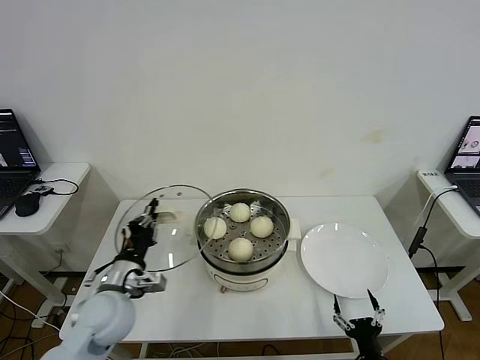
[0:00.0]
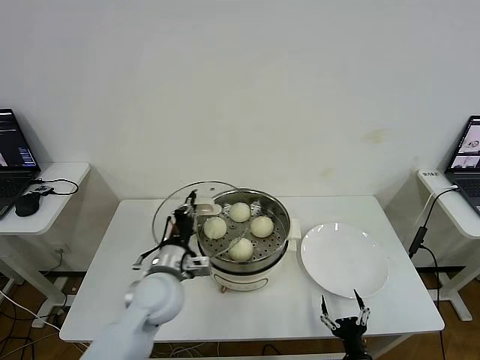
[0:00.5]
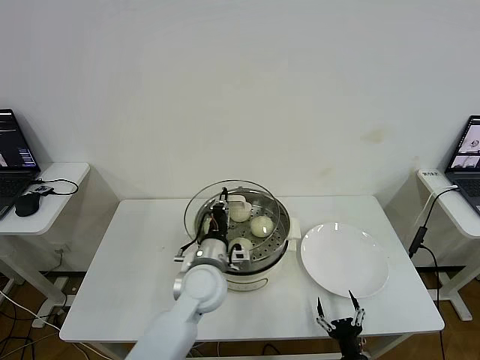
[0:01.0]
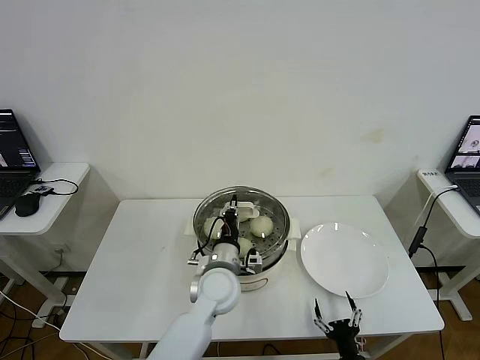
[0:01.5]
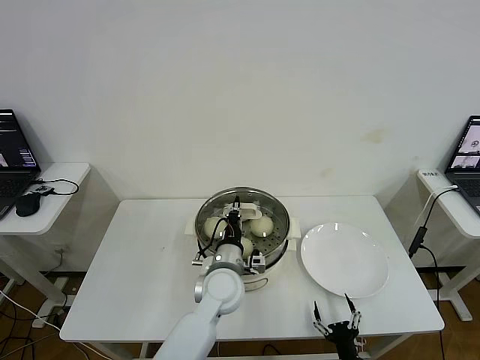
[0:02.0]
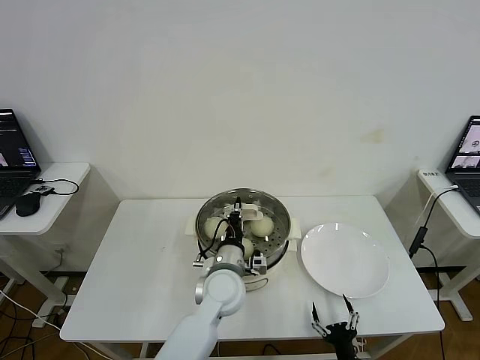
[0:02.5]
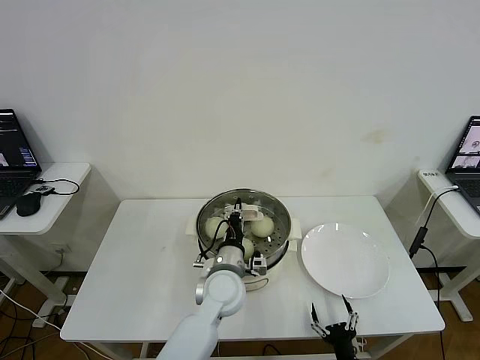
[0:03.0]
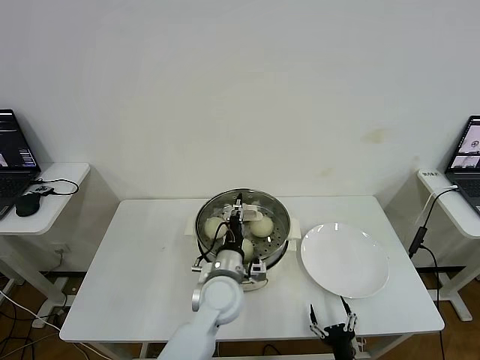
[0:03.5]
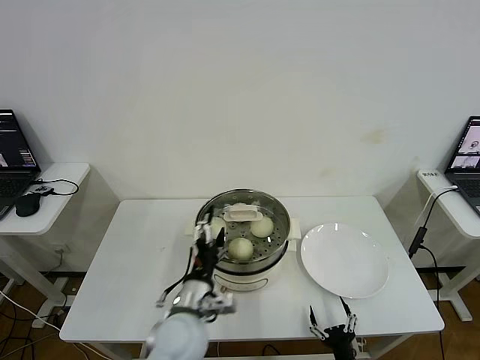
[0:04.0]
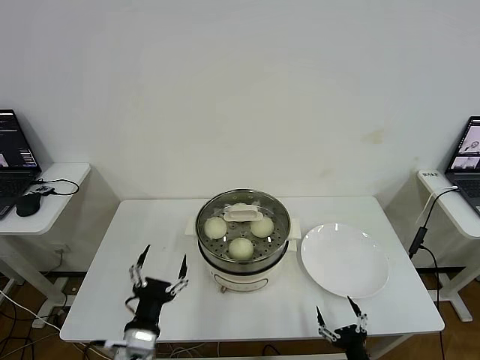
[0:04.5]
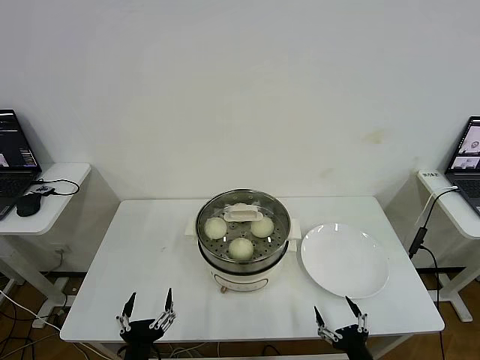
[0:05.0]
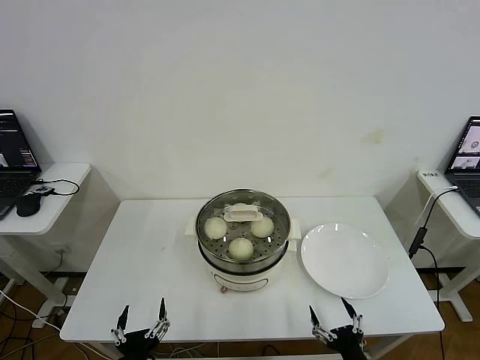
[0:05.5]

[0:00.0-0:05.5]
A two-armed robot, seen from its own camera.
Step, 0:00.0 to 0:03.0: Place the pot lid on the steamer with left gripper.
0:00.0 to 0:02.0: The right gripper moves roughly 5 cm. The left gripper shifts roughly 20 cm to the right.
0:02.0 to 0:03.5: The left gripper opens its fingers.
0:03.5 to 0:05.5: The left gripper goes approximately 30 cm backward and to the left, and opens. Meanwhile the right gripper is displaced upward by approximately 10 cm.

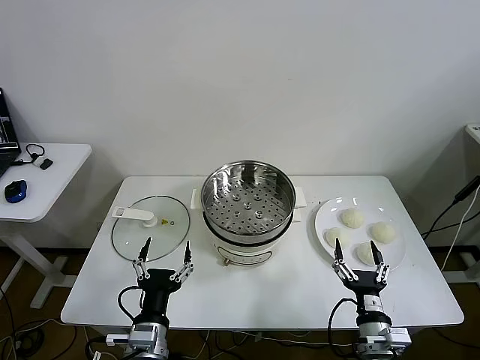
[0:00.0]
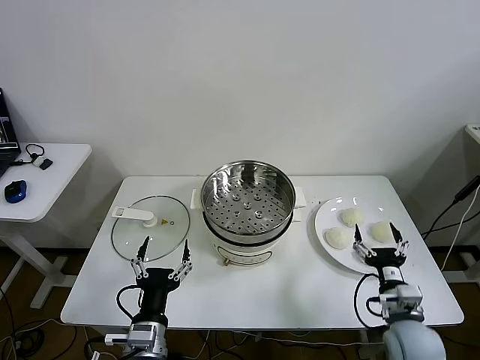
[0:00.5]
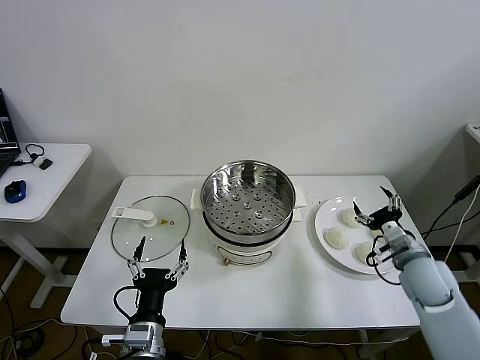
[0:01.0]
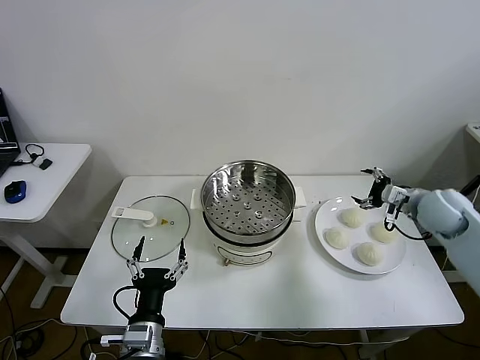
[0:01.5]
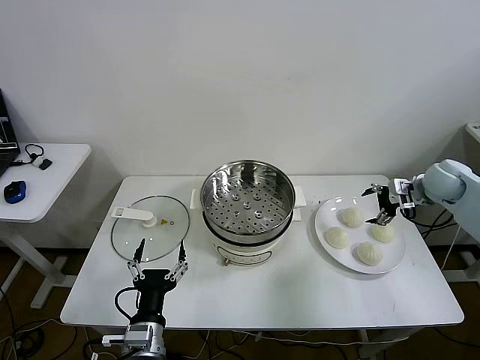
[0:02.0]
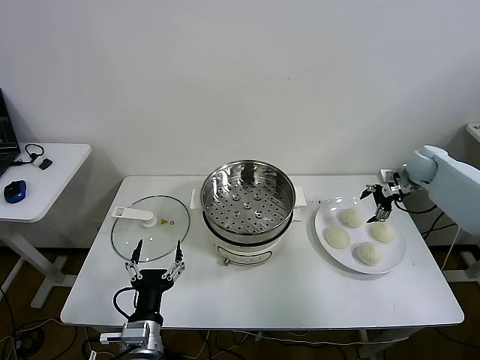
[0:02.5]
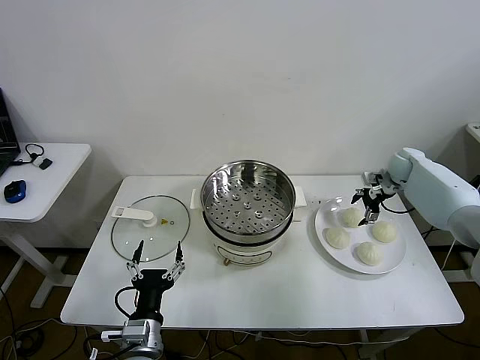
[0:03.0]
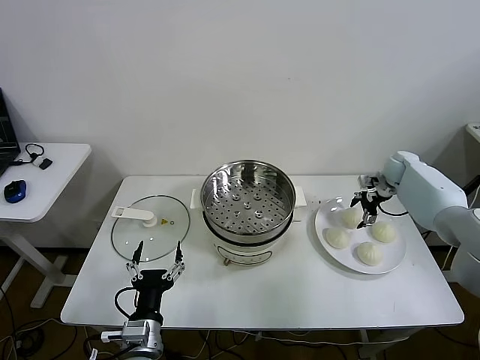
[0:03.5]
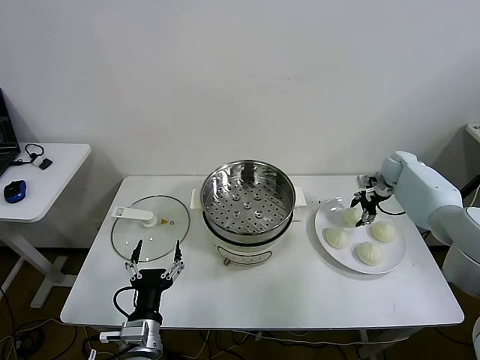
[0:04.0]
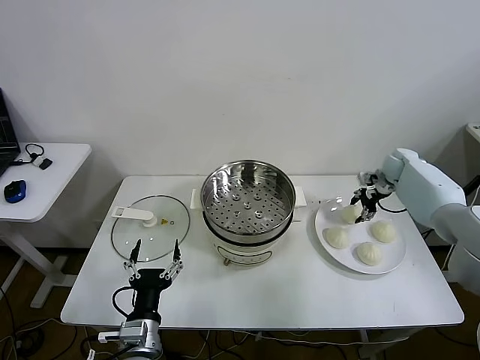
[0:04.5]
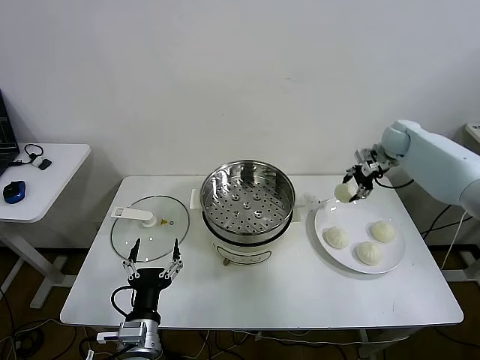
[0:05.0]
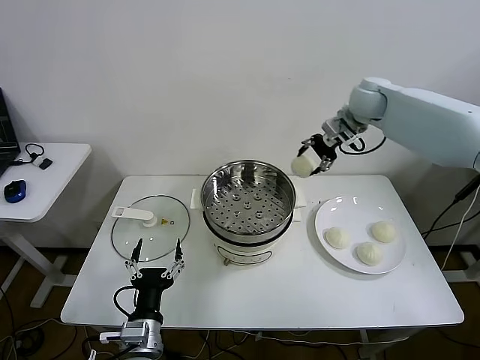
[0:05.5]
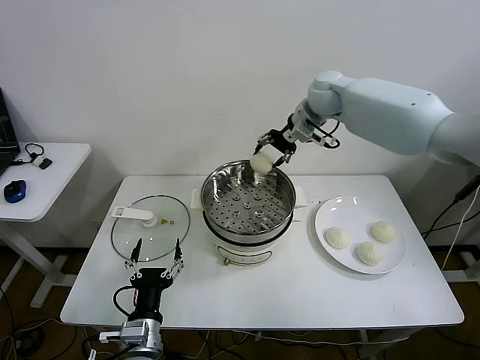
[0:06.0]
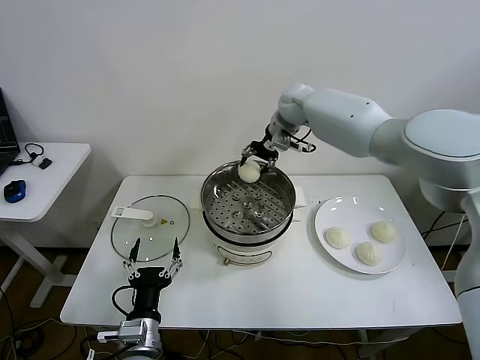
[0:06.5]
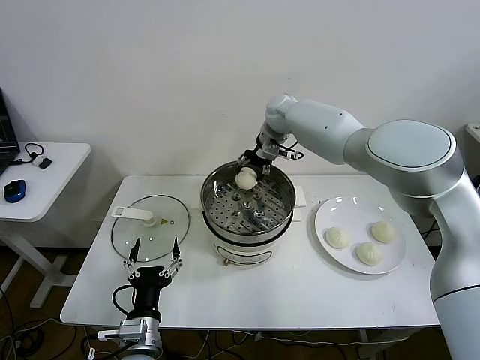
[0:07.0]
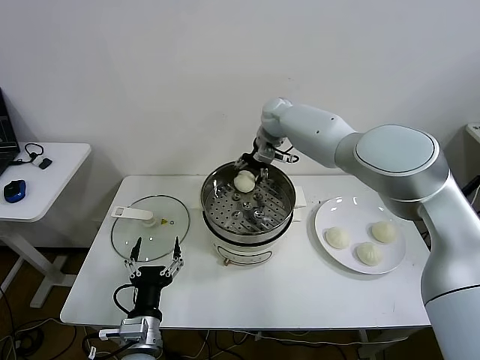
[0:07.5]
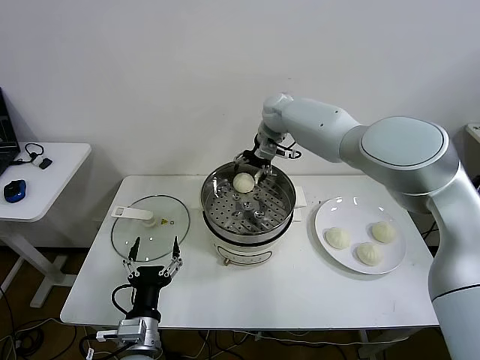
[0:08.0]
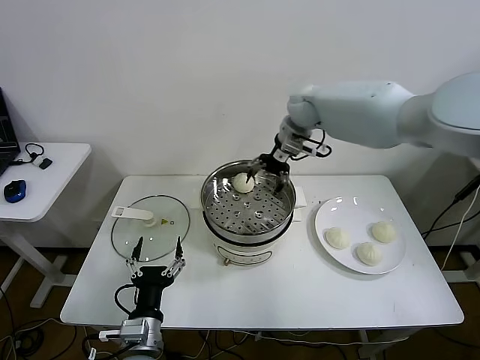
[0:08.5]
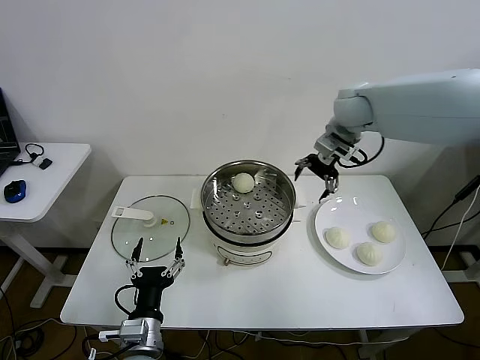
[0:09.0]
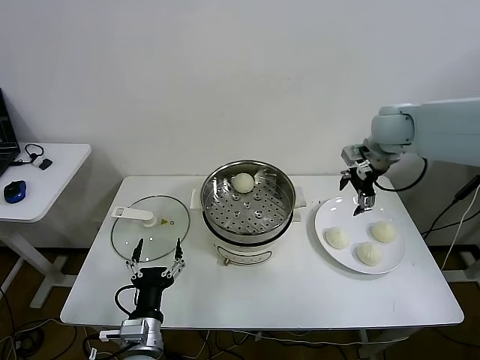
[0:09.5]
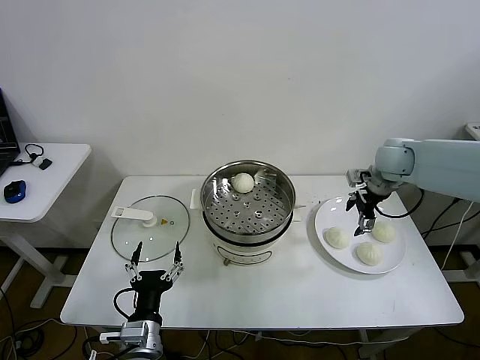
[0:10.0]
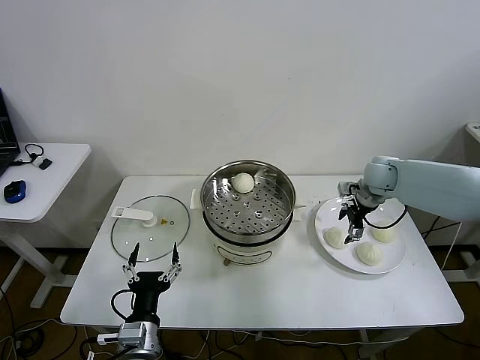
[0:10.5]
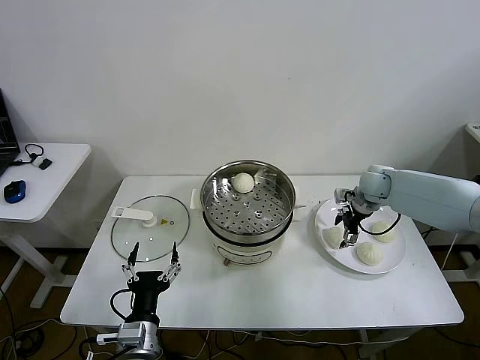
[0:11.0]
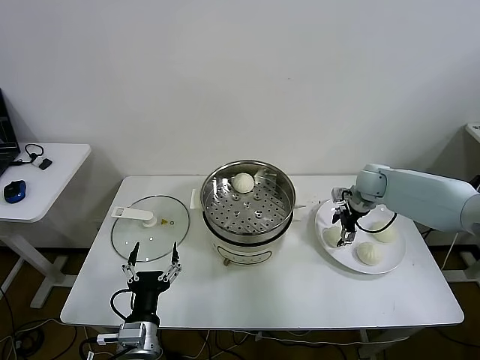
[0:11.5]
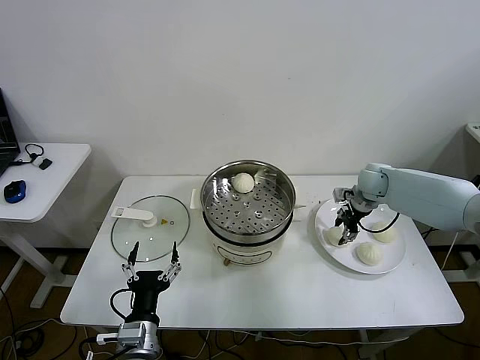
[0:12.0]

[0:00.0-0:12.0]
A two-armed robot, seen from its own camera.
Step, 0:00.0 to 0:04.0: Grasp the baozi in the plate with right gripper.
Step, 0:04.5 to 0:08.0: Place the baozi on the steamer with right gripper.
Step, 0:08.5 to 0:12.0: Grasp the baozi in the plate with right gripper.
0:02.0 to 0:04.0: The right gripper is displaced forward and downward by some 15 cm.
0:04.0 to 0:06.0: The right gripper goes about 35 cm to the left and upward.
0:06.0 to 0:08.0: The right gripper travels to the left and downward by about 10 cm, and opens up.
0:08.0 to 0:10.0: The right gripper travels to the right and backward by approximately 30 cm.
0:10.0 to 0:12.0: The right gripper is displaced downward by roughly 10 cm, and closes its fingers.

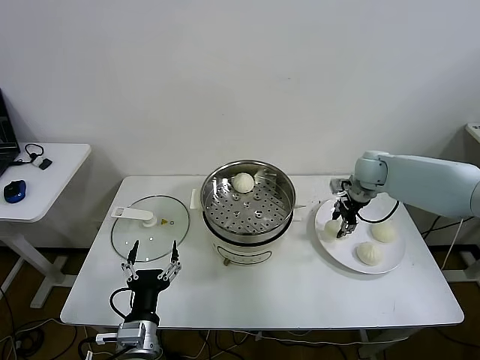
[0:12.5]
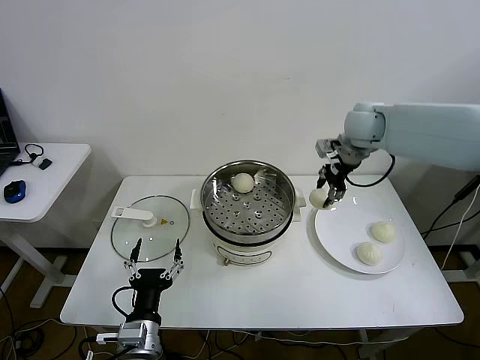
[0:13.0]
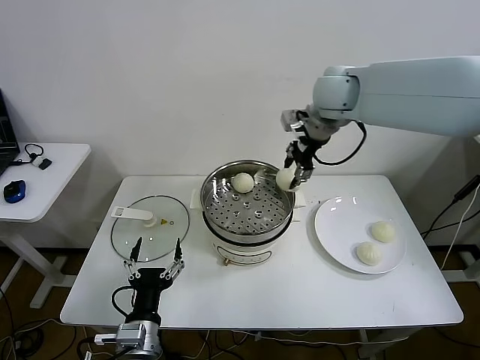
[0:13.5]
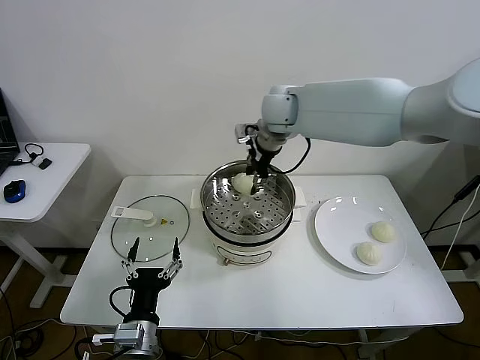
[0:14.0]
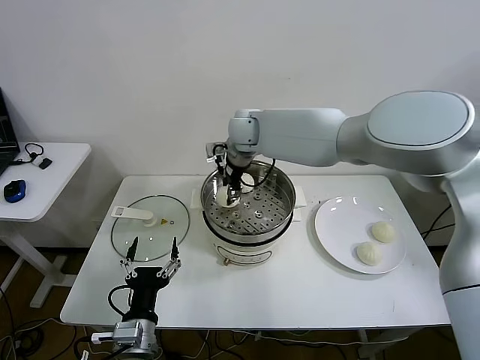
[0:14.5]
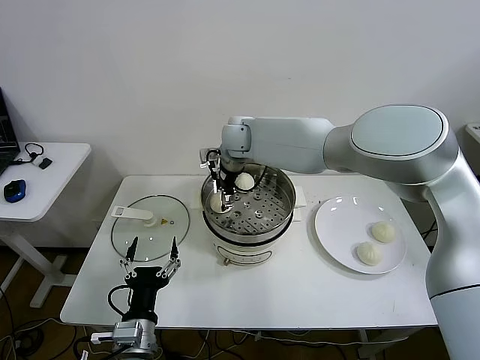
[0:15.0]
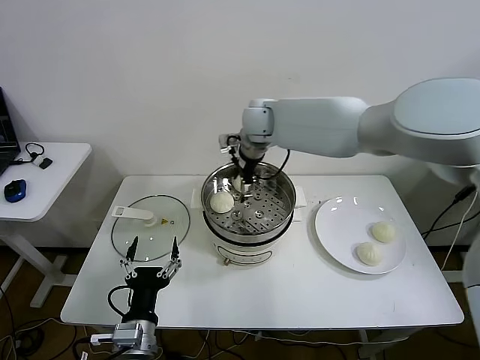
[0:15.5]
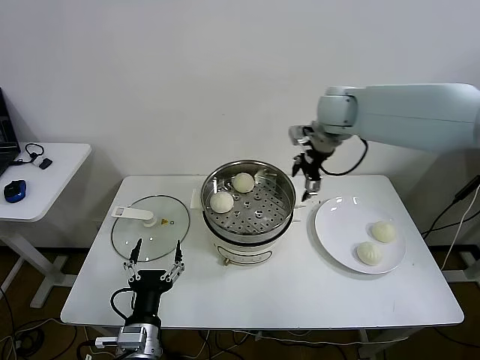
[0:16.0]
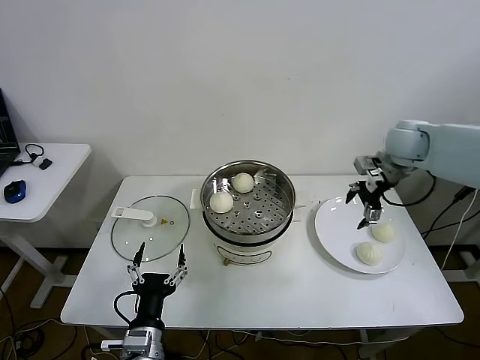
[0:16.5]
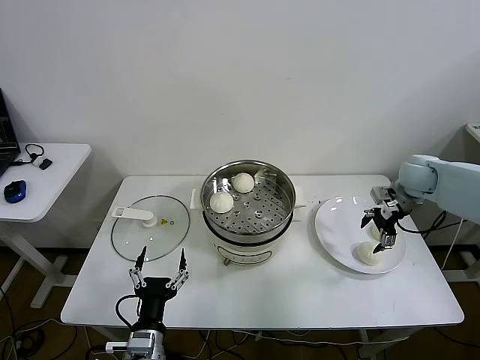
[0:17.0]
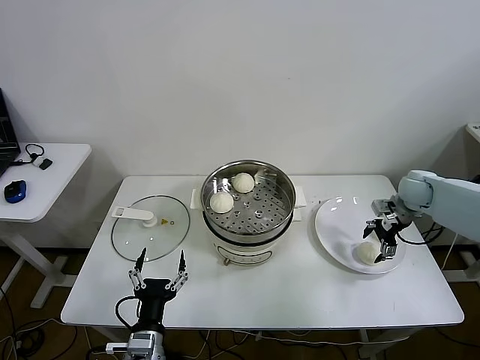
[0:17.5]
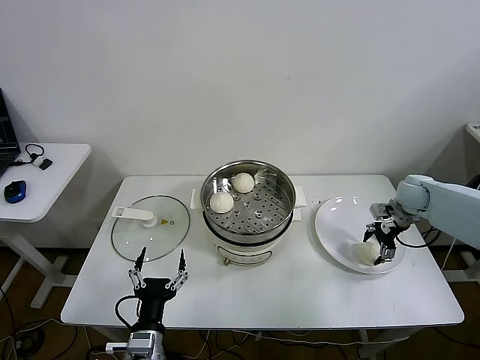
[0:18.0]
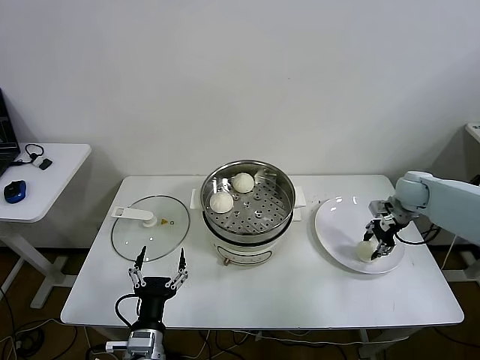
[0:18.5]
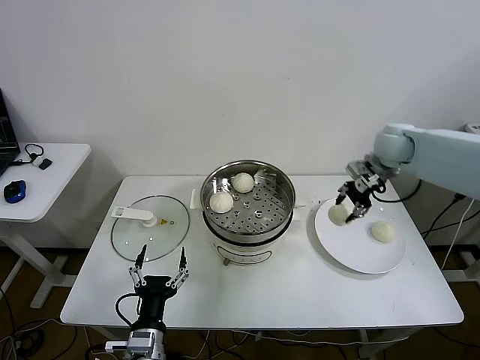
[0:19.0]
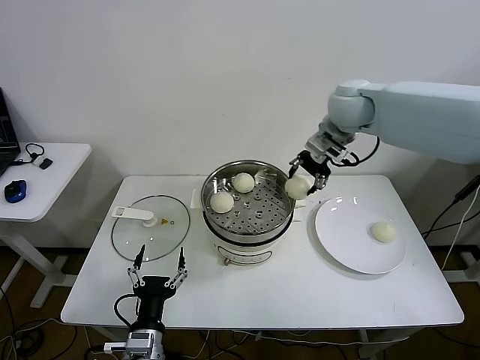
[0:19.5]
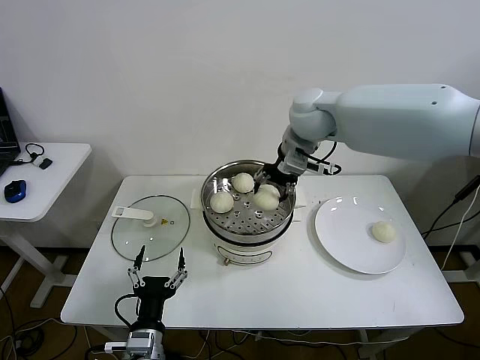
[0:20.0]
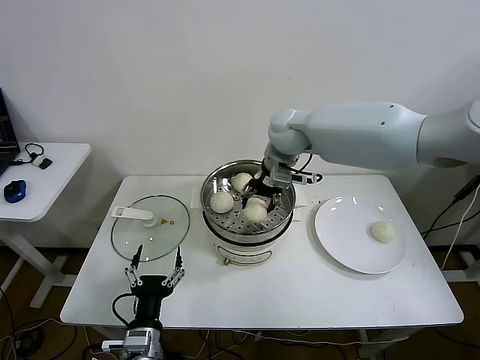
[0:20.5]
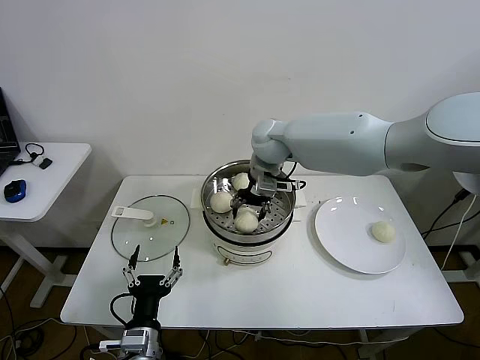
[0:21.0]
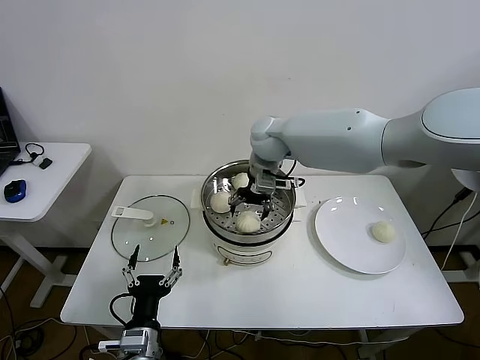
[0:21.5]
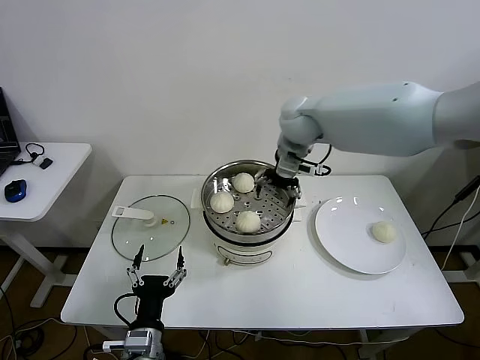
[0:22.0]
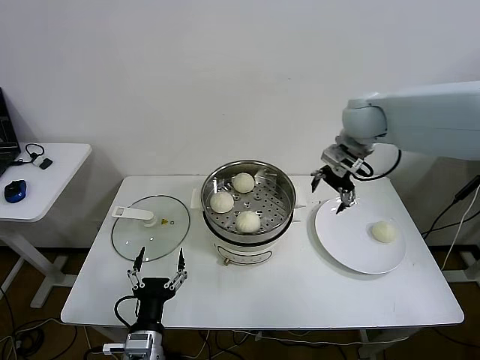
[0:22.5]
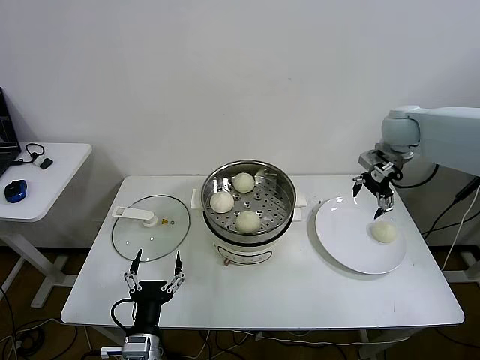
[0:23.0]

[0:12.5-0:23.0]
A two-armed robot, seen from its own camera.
Step, 0:12.5 to 0:15.0: Place the baozi on the steamer with right gripper.
Step, 0:15.5 to 0:18.0: Grasp the baozi in the plate with right gripper.
Step, 0:19.0 to 0:21.5: Place the baozi on the steamer with right gripper.
0:12.5 to 0:14.5: The right gripper heads to the left, covering about 30 cm.
0:14.5 to 0:16.5: The right gripper heads to the right, covering roughly 35 cm, and opens its fingers.
0:16.5 to 0:19.0: The right gripper moves some 15 cm downward and comes back, and closes its fingers.
0:19.0 to 0:21.0: The right gripper goes about 30 cm to the left.
0:21.0 to 0:23.0: The right gripper is displaced to the right by about 30 cm.
